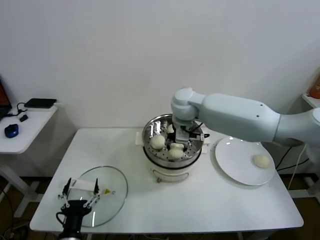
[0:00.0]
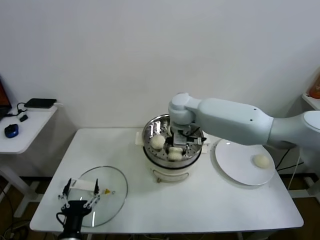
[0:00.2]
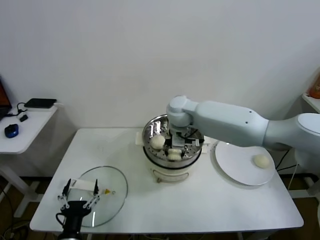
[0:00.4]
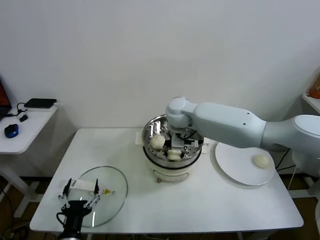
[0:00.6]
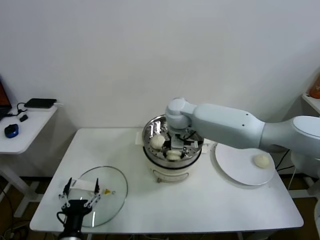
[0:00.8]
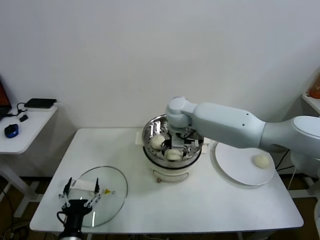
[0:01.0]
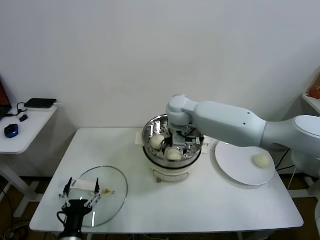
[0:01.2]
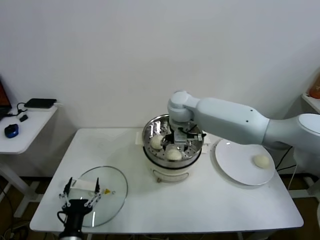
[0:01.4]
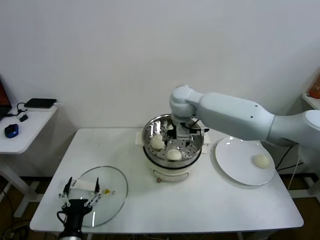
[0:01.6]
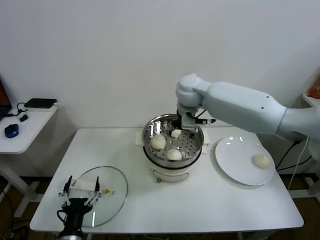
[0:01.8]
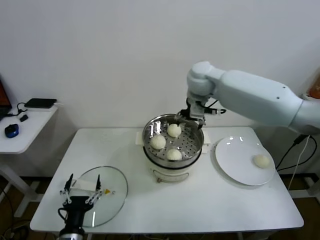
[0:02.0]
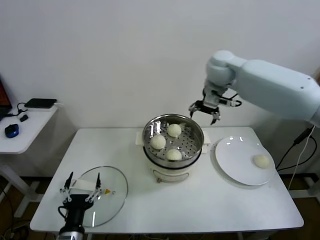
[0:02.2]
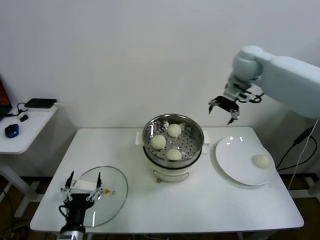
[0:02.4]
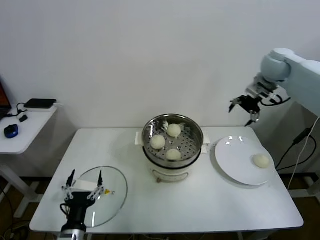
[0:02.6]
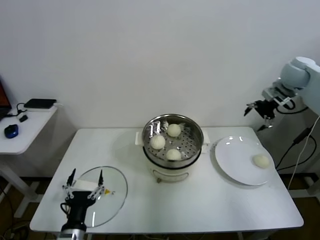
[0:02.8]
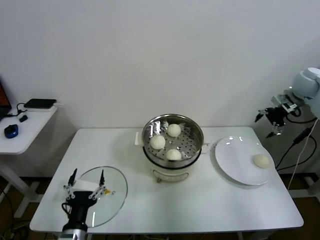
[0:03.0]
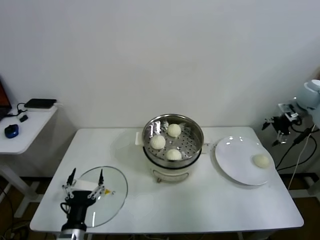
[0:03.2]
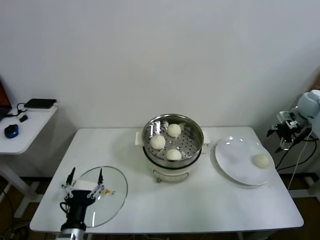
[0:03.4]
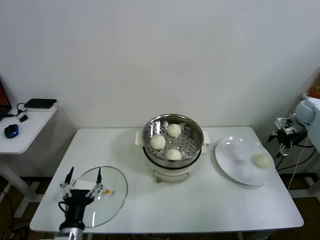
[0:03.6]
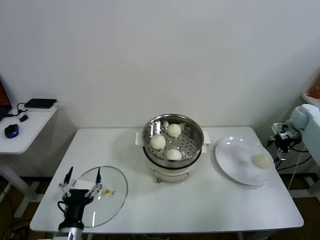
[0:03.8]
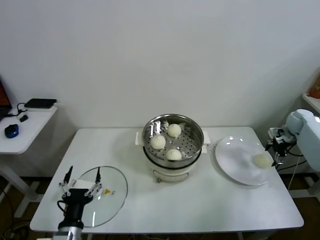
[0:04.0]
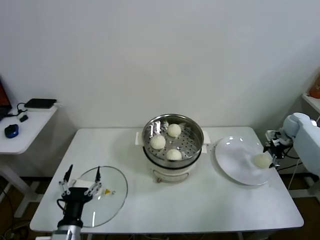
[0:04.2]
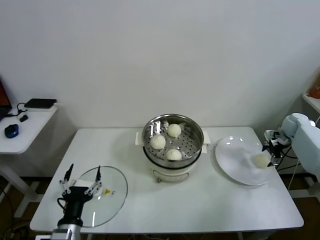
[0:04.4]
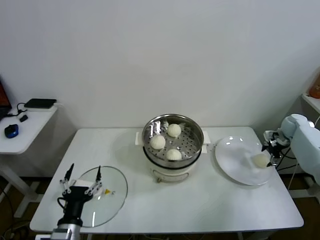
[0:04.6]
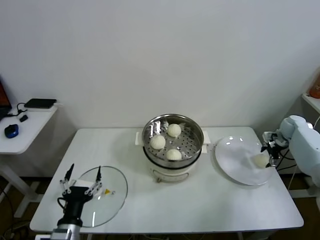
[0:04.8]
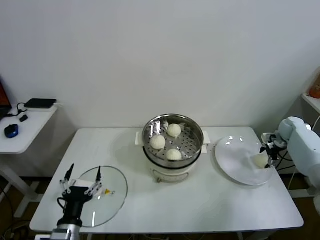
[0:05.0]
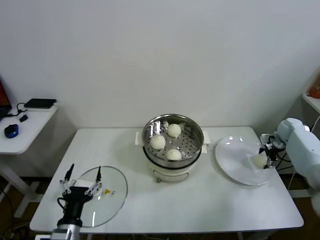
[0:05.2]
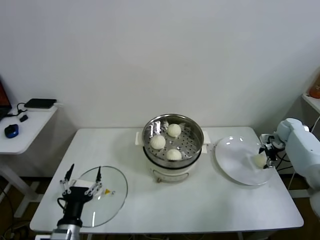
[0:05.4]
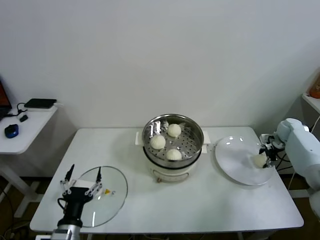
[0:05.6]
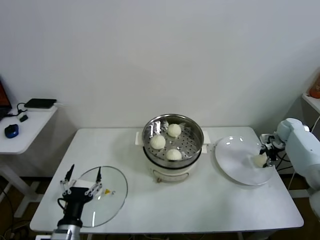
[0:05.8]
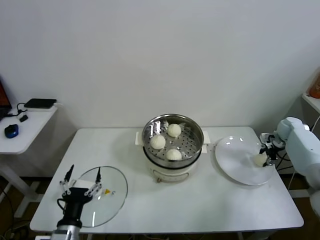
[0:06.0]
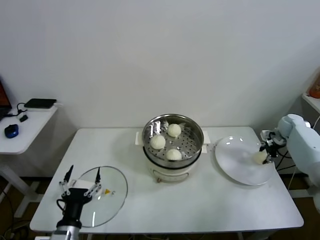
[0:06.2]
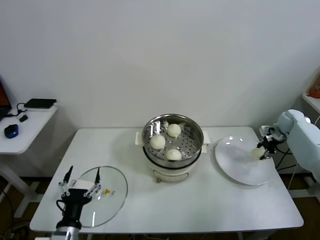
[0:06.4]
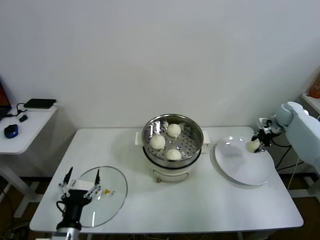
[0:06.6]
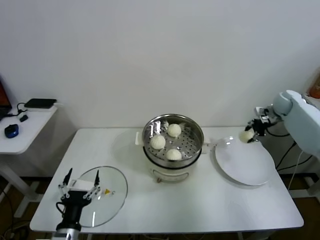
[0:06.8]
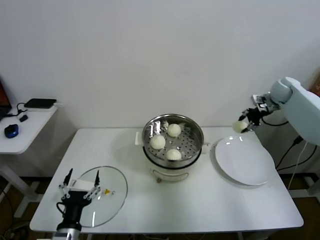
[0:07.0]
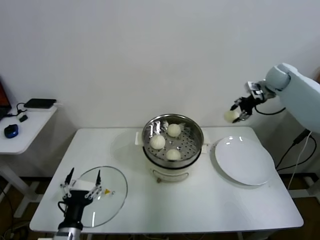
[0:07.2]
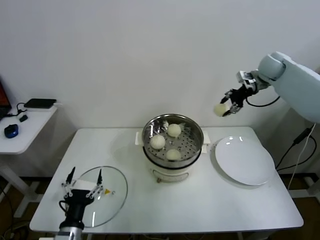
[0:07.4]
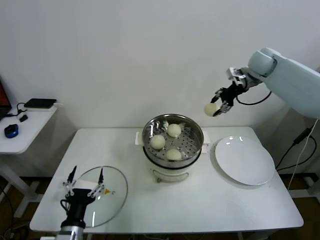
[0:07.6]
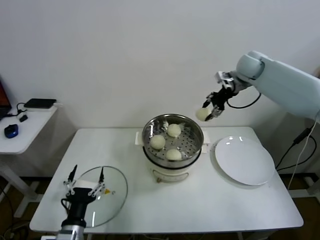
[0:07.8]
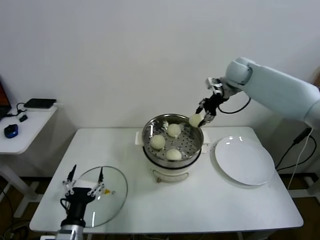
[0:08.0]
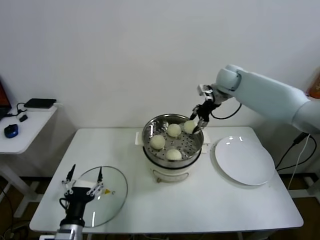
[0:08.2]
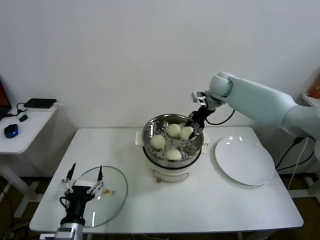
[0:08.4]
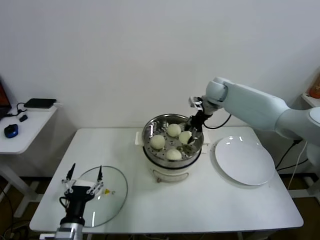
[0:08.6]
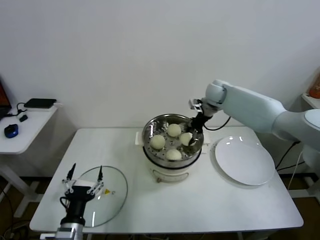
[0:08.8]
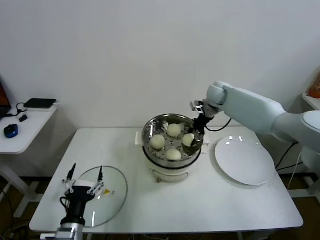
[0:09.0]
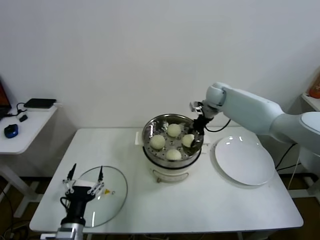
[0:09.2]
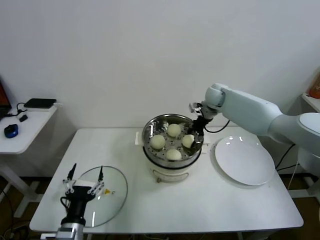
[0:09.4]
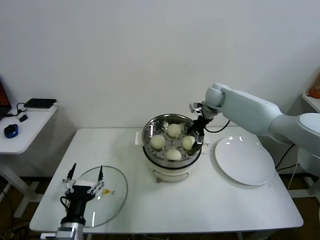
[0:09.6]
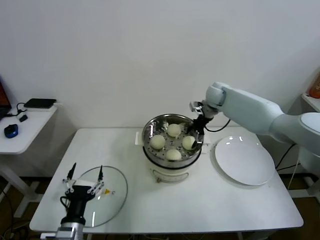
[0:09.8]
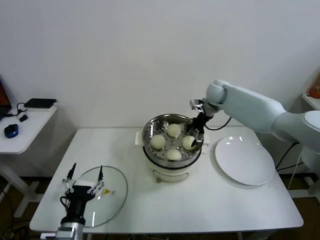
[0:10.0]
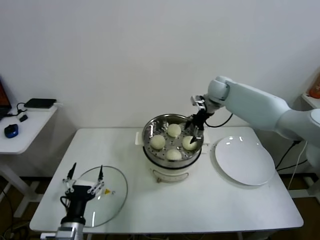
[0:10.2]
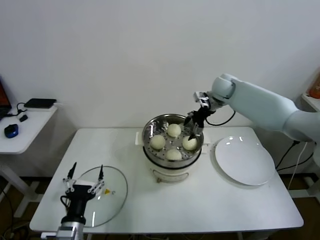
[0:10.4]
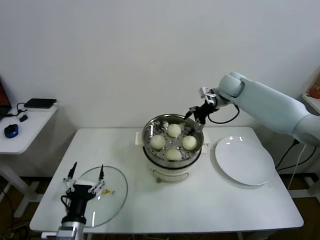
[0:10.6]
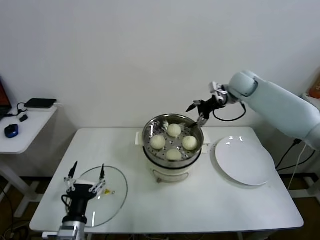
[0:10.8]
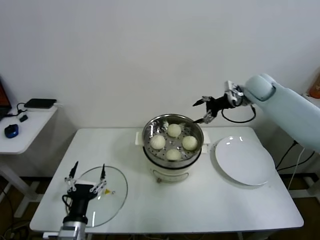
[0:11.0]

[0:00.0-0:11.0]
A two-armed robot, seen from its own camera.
Task of the whole recording: take steamed baozi put them in steamer.
Step, 0:01.4 to 0:05.8: Grasp the baozi in the plate with right gripper.
Step, 0:06.0 to 0:09.6: Place the baozi on the steamer with right gripper.
0:00.0 to 0:01.6: The right gripper opens its fingers.
0:01.6 to 0:03.2: The right gripper shifts roughly 40 cm to the right.
0:03.2 to 0:04.8: The right gripper heads downward, covering some 15 cm.
0:04.8 to 0:06.2: The right gripper closes.
0:06.2 to 0:07.8: The right gripper heads upward and to the left, covering roughly 35 cm.
0:07.8 to 0:09.4: The right gripper goes about 15 cm downward and to the left.
0:09.4 to 0:11.0: The right gripper heads to the right and upward, covering about 10 cm, and opens its fingers.

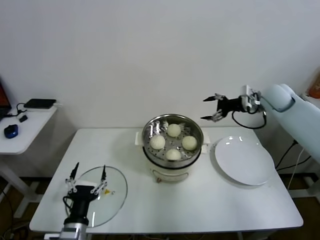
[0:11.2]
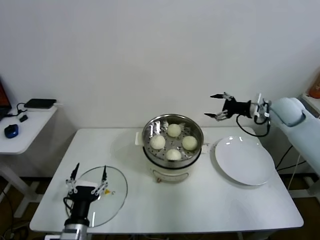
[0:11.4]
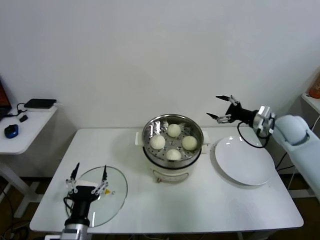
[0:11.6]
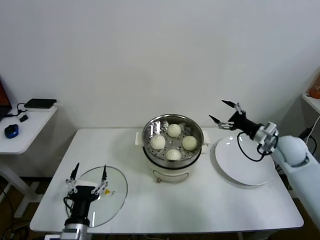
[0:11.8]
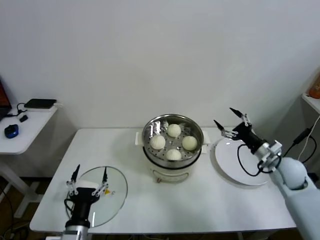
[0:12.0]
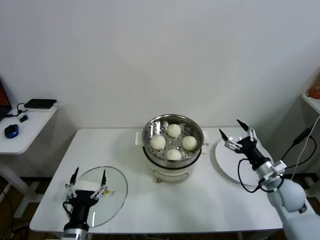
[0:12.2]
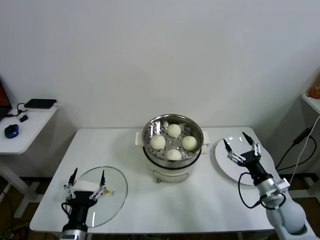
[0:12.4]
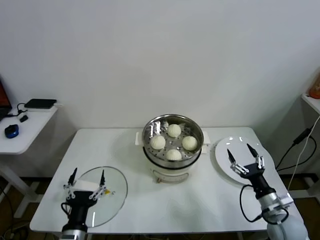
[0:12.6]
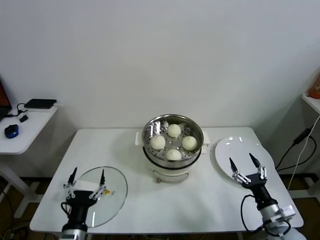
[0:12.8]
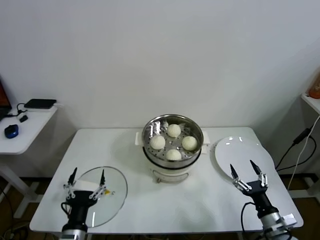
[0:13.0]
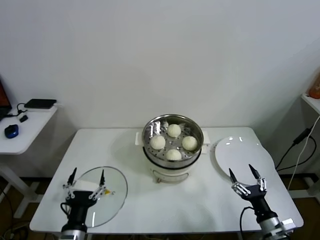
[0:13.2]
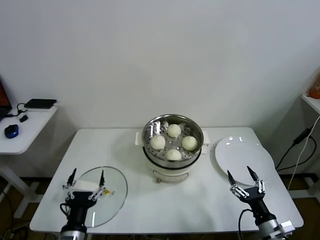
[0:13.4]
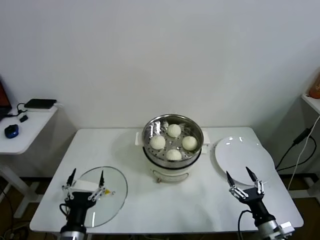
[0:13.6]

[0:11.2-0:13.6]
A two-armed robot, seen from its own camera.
Task of the whole recording: take steamed baozi put them in steamer.
0:11.2 to 0:12.4: The right gripper travels backward and downward by approximately 35 cm.
0:12.4 to 0:13.6: The right gripper shifts some 15 cm backward and downward.
